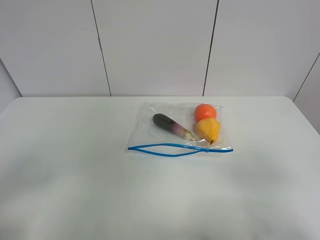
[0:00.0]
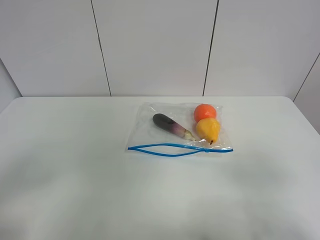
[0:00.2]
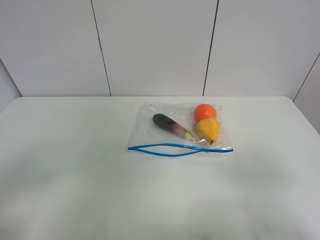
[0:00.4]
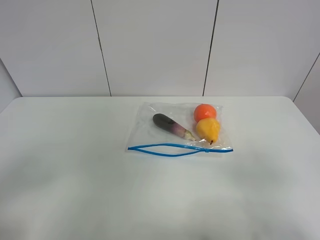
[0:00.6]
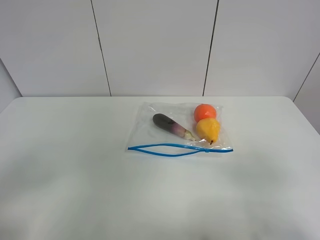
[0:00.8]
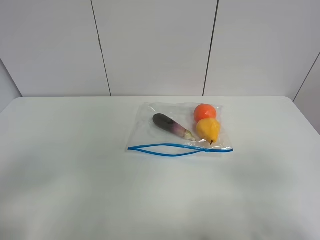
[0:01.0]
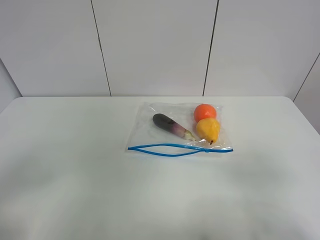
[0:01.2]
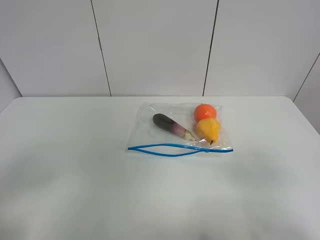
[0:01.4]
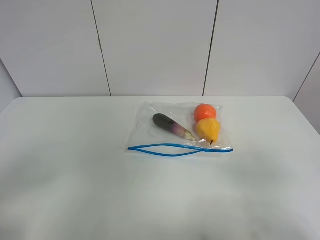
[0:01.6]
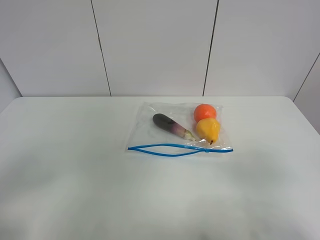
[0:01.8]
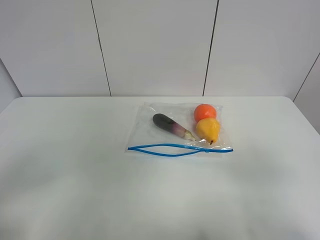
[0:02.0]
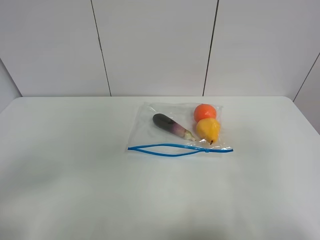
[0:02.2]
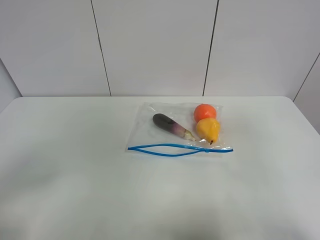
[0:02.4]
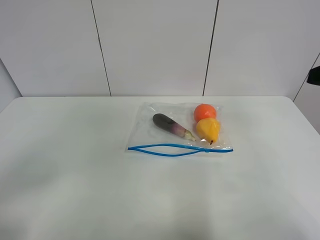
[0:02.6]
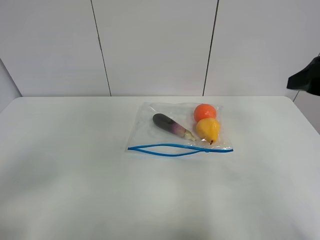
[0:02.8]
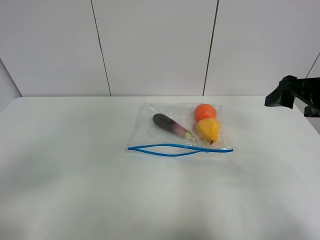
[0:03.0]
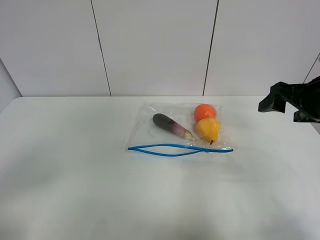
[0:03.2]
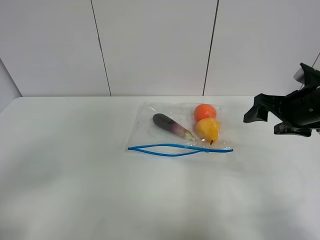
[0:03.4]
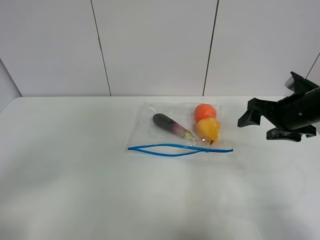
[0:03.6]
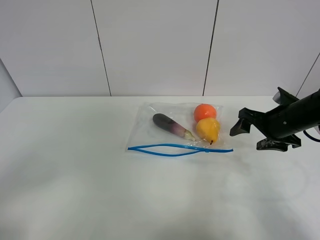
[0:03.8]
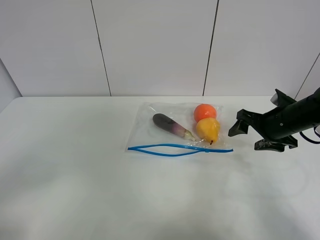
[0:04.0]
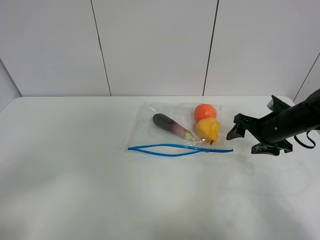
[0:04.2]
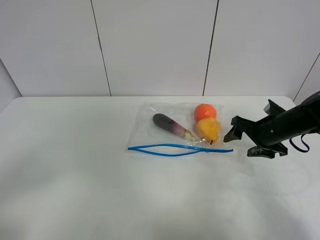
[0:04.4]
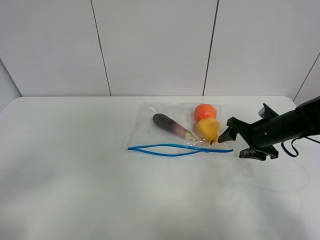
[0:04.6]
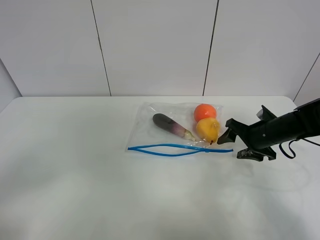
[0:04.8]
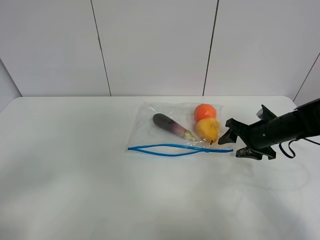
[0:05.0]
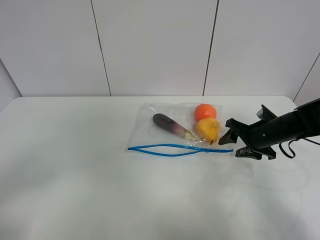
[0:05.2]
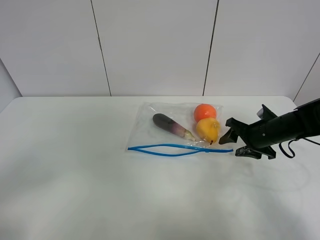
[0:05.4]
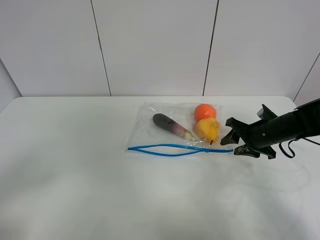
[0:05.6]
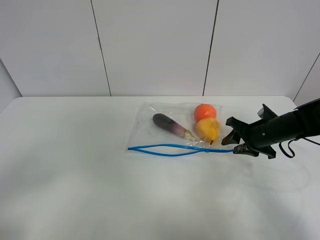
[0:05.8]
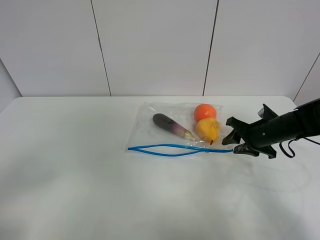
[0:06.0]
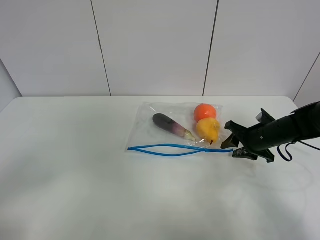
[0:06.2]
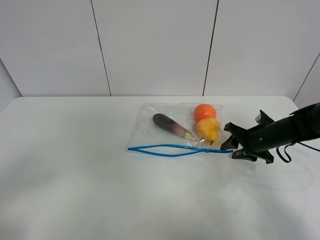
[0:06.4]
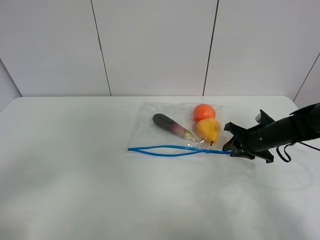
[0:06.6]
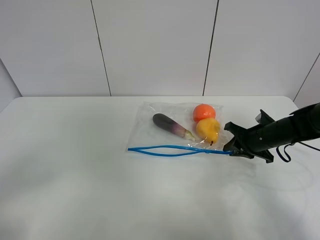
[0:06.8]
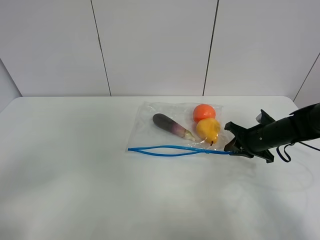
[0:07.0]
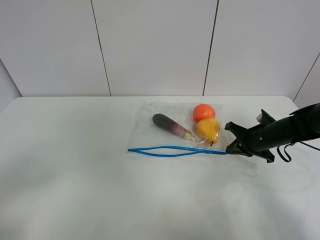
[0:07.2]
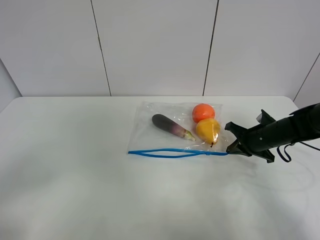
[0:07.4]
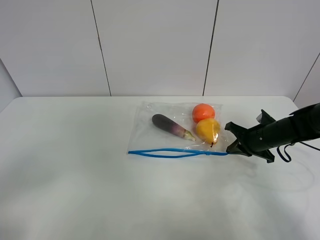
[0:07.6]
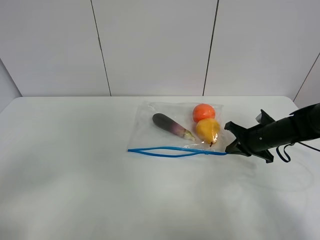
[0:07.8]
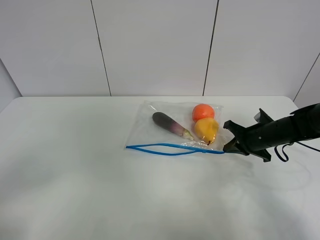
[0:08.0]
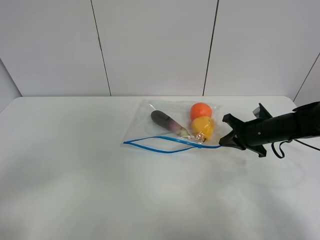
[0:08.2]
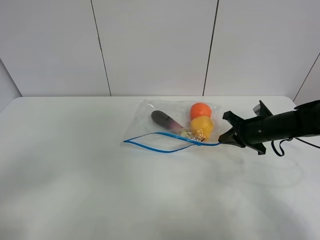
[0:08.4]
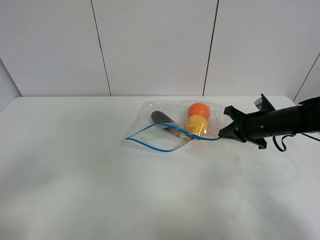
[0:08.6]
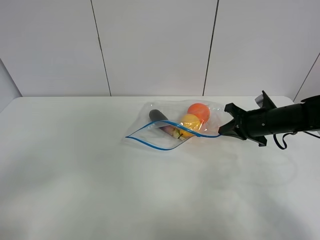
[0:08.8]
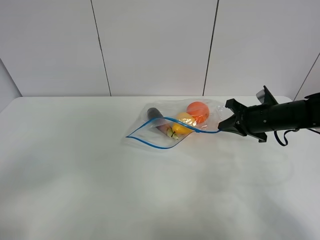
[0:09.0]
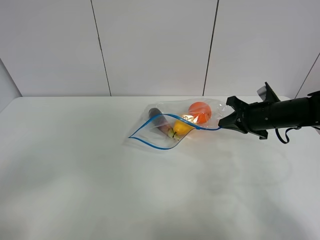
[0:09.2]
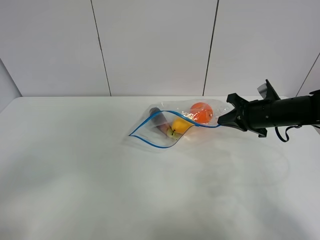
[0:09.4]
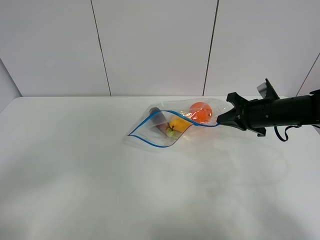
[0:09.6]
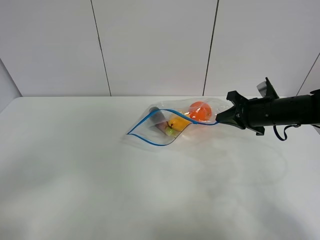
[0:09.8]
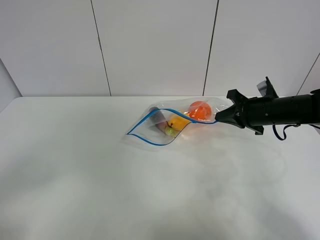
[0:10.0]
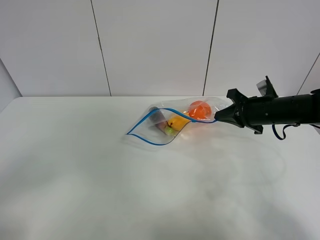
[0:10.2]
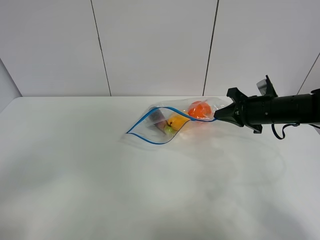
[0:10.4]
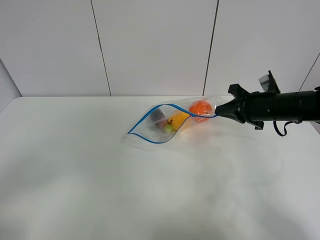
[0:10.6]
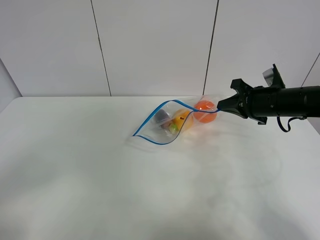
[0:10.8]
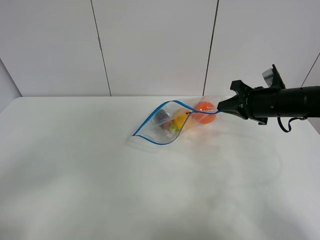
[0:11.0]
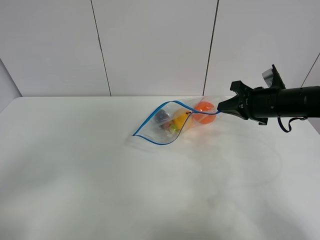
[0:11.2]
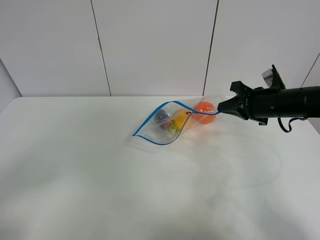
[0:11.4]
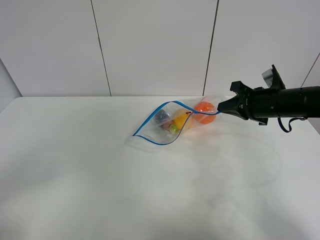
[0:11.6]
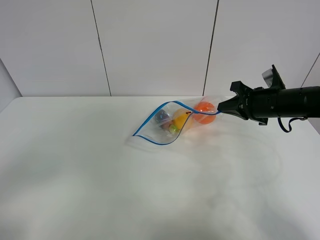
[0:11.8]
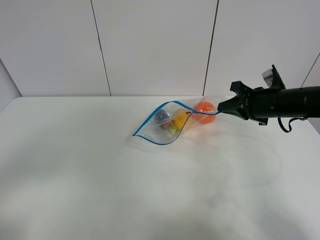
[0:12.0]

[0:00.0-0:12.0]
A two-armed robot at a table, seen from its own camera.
Step, 0:00.0 to 0:07.2: Grasp the fruit bag with right gripper.
Step, 0:07.4 to 0:10.0: Lift the fruit bag with your right gripper.
0:00.0 to 0:01.6: Both grippers stay put.
0:01.6 to 0:03.0: The right gripper heads forward, covering roughly 25 cm.
0:03.0 to 0:04.4: The right gripper is displaced downward and forward by roughly 20 cm.
0:04.4 to 0:06.0: The right gripper closes up.
0:06.0 to 0:07.6: The right gripper closes up.
0:07.6 to 0:09.0: The right gripper shifts about 5 cm upward.
0:09.0 to 0:12.0: The grippers move only a little.

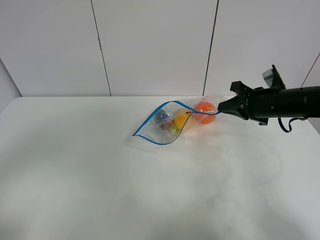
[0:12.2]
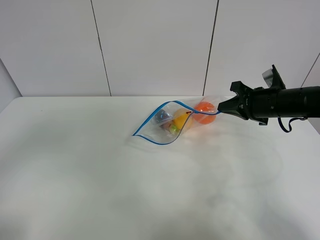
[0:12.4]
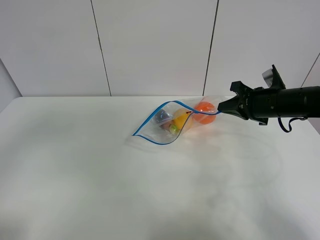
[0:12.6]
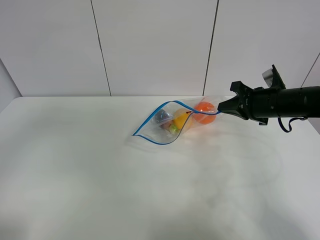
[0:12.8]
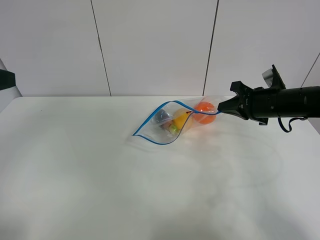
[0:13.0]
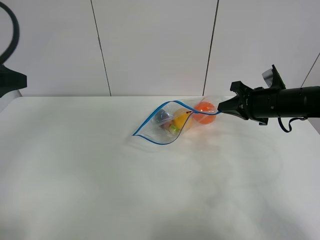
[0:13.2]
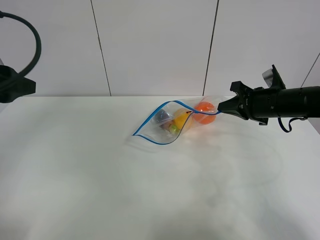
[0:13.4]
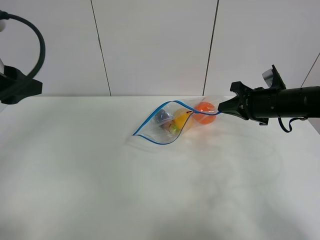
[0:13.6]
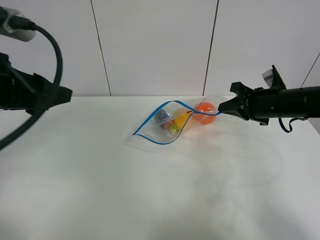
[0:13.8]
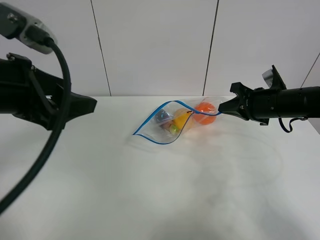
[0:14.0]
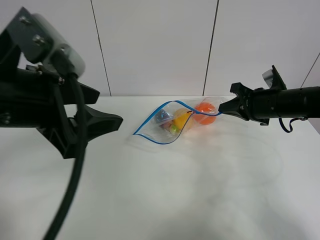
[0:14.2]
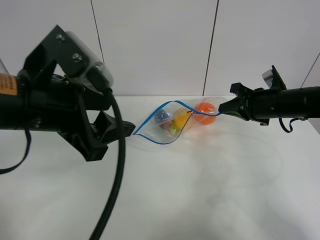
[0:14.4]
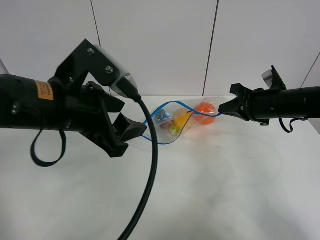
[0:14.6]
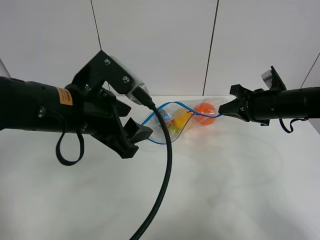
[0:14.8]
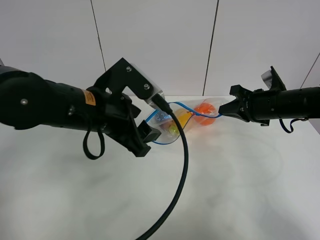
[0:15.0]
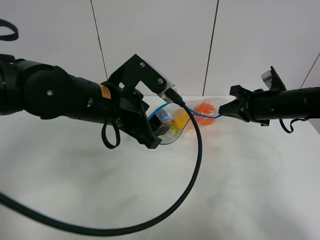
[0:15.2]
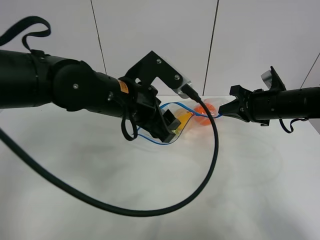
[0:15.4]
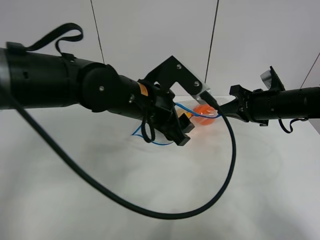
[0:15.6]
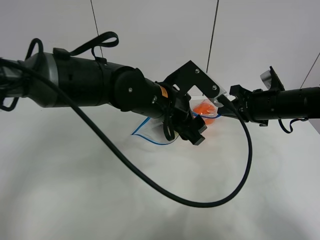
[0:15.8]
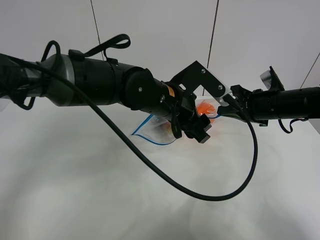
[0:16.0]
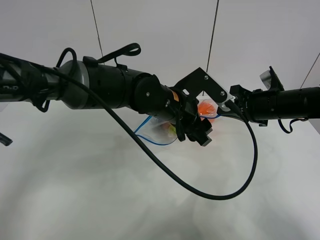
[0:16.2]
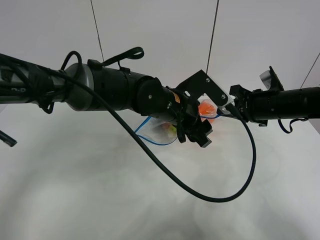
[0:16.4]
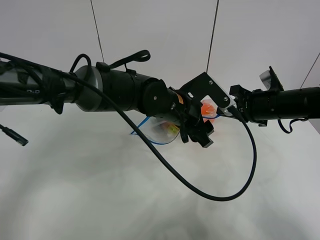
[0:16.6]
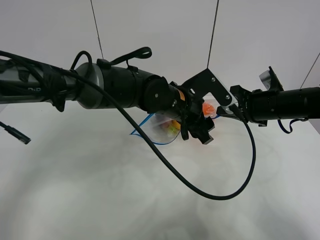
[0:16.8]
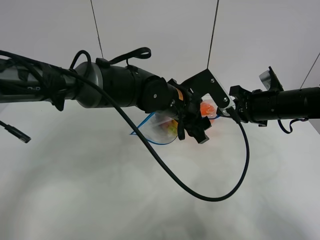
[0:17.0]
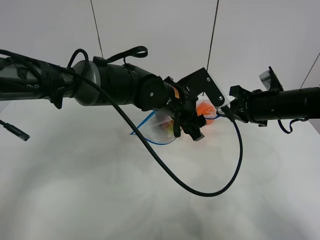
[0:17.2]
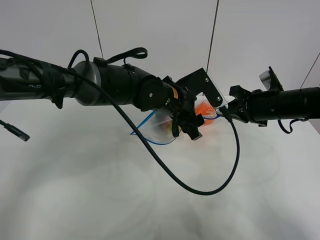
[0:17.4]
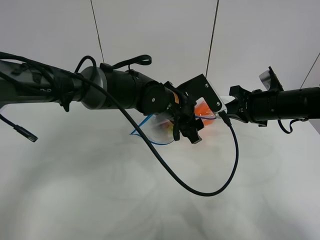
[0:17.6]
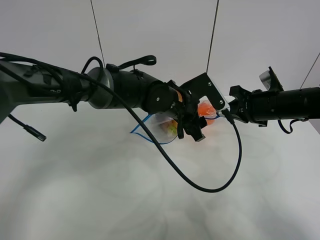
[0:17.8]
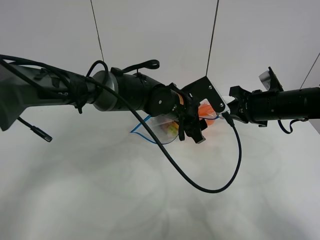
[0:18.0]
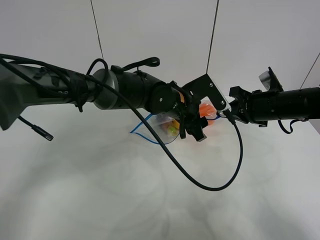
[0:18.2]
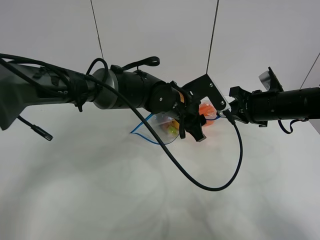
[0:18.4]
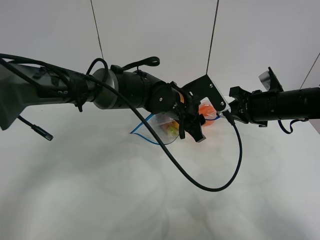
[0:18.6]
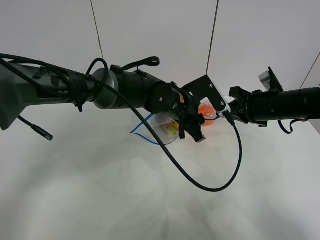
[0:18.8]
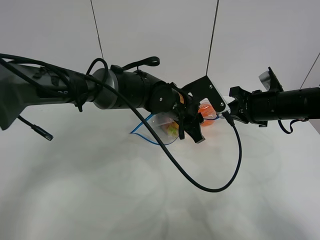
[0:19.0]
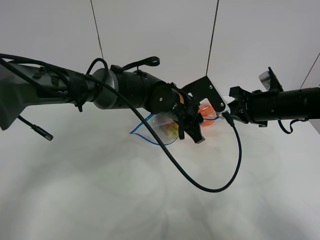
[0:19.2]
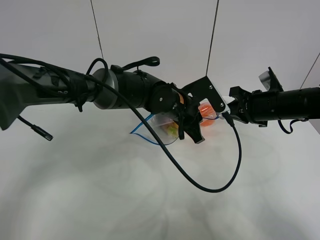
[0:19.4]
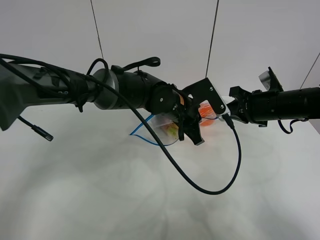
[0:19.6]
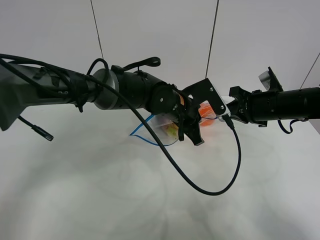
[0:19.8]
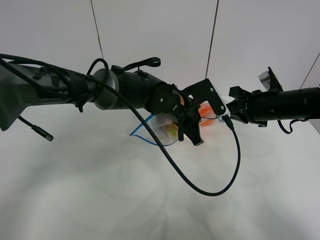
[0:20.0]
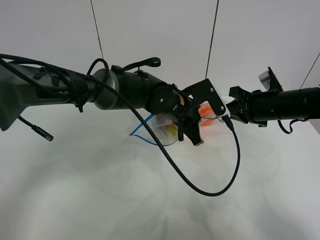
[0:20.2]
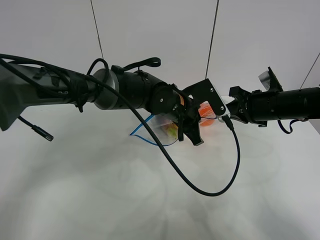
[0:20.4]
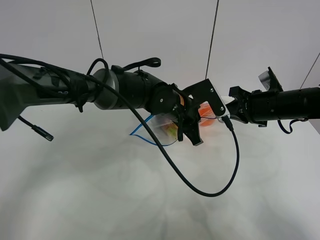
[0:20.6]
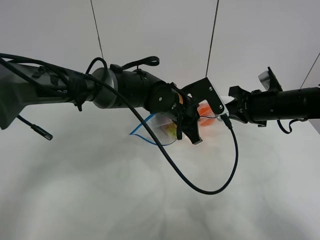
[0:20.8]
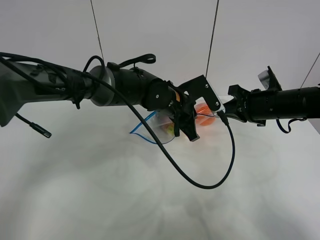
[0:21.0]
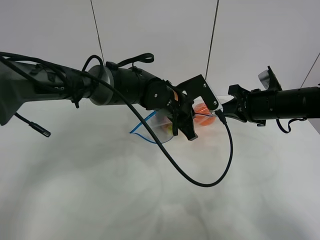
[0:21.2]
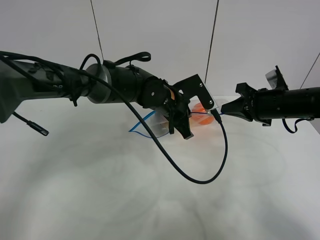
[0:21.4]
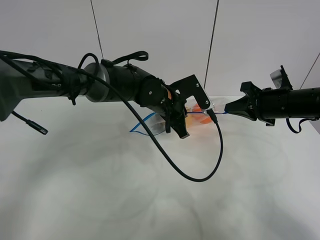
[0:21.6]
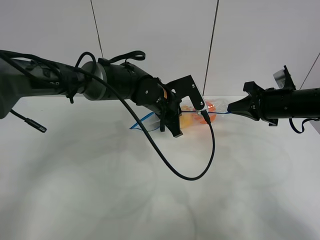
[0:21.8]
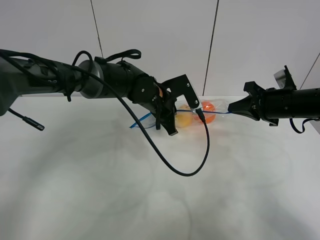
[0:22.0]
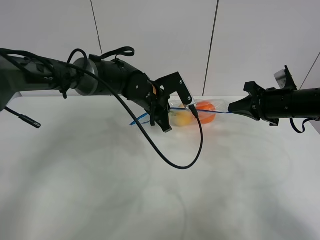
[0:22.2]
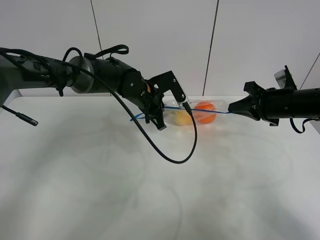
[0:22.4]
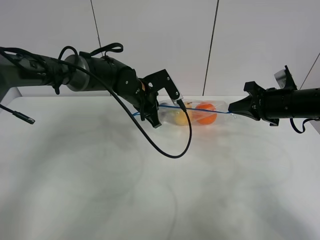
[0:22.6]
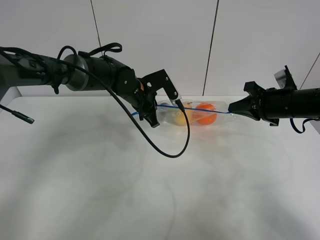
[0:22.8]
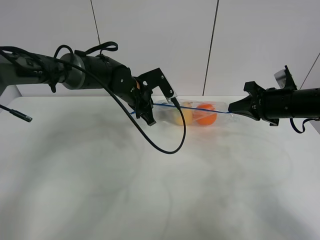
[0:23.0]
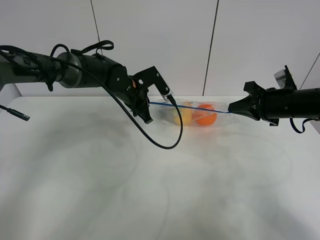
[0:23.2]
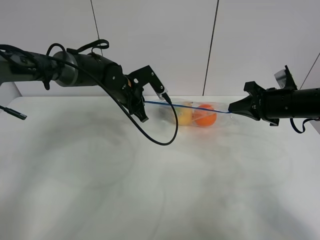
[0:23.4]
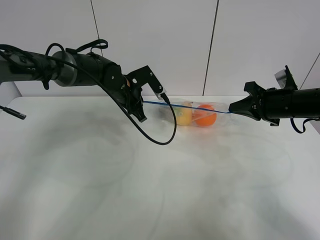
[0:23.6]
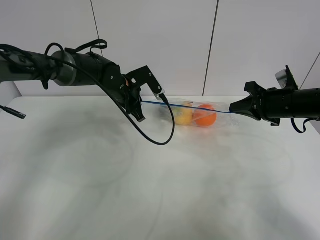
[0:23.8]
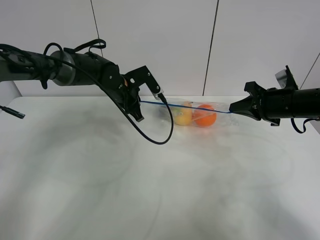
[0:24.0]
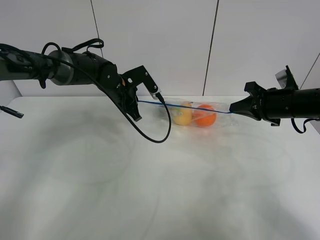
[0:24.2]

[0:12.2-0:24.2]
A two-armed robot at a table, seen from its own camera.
0:12.2 to 0:13.8: The left gripper goes about 15 cm forward and to the right.
0:13.8 to 0:15.2: The left gripper goes roughly 20 cm to the right, downward and forward.
0:15.2 to 0:16.6: The left gripper moves to the right, forward and downward, some 15 cm.
0:16.6 to 0:18.2: The grippers stay close to where they were, moving slightly.
0:18.2 to 0:19.8: The left gripper closes its fingers.
0:19.8 to 0:21.2: There are only small adjustments of the grippers.
0:21.2 to 0:22.6: The left gripper heads to the left, covering some 10 cm.
0:22.6 to 0:24.2: The left gripper heads to the left, covering approximately 5 cm.
